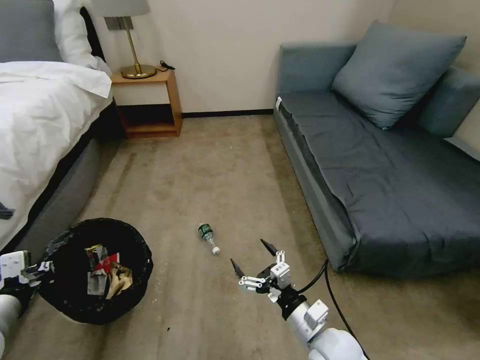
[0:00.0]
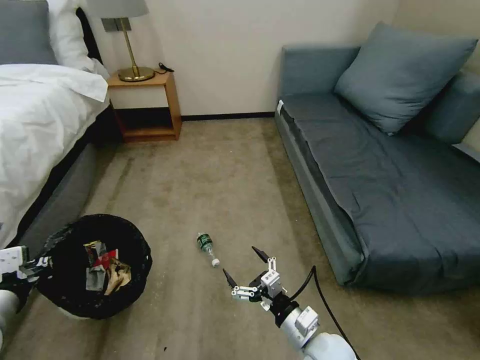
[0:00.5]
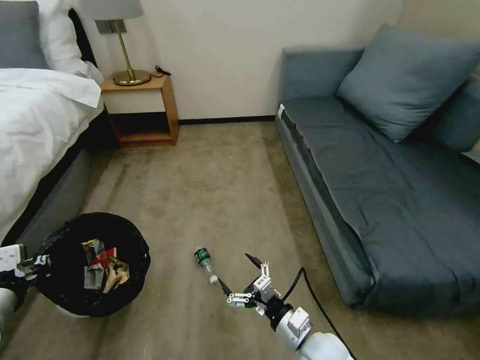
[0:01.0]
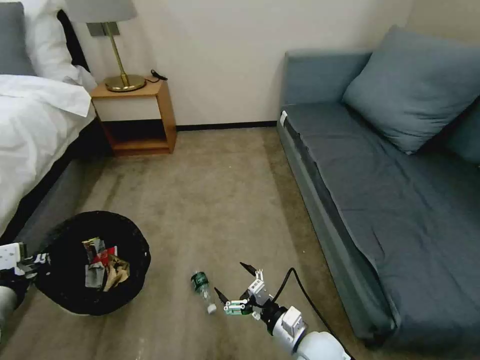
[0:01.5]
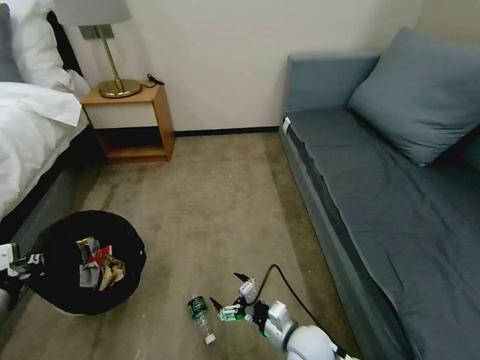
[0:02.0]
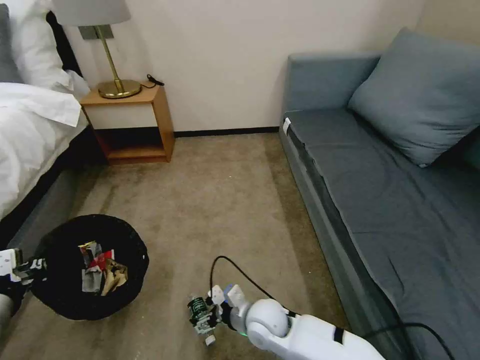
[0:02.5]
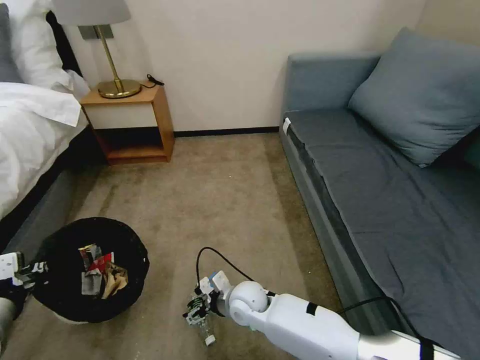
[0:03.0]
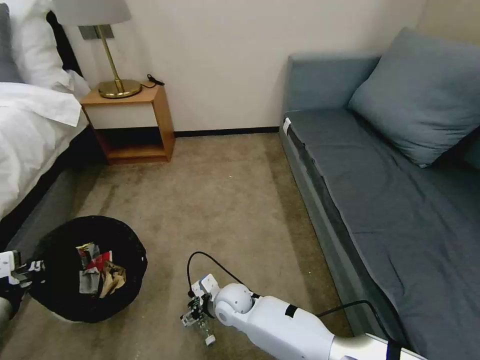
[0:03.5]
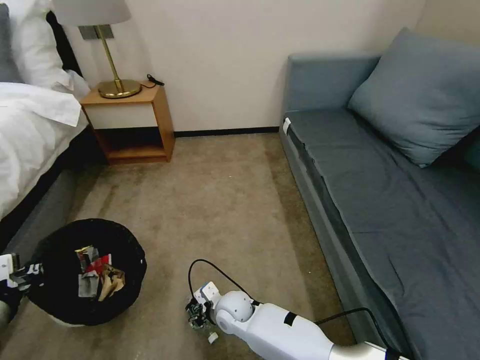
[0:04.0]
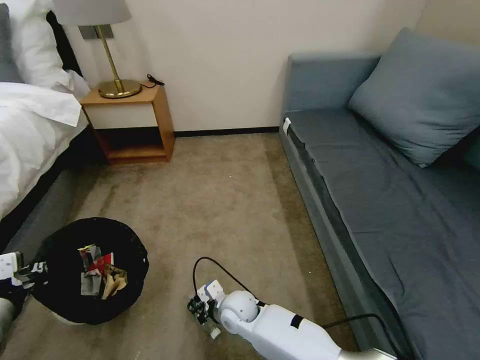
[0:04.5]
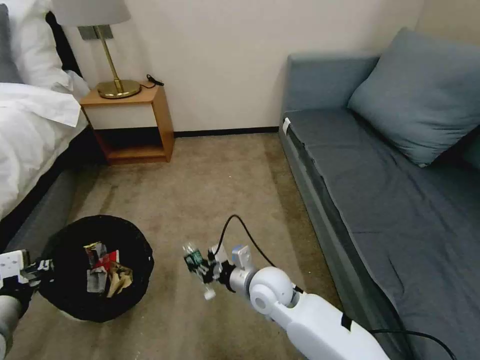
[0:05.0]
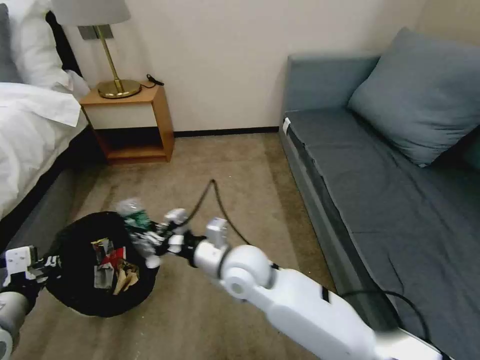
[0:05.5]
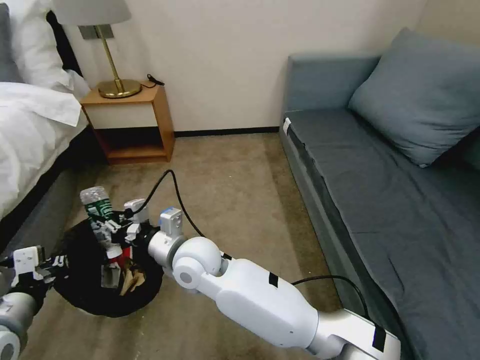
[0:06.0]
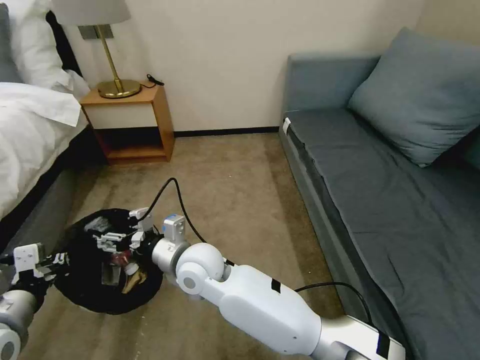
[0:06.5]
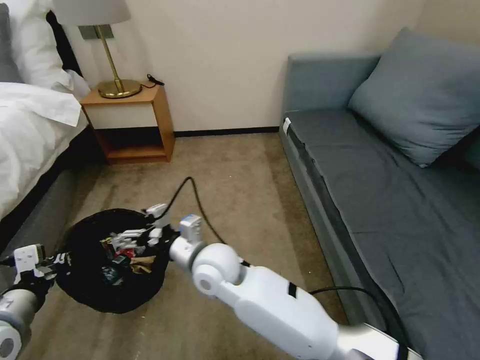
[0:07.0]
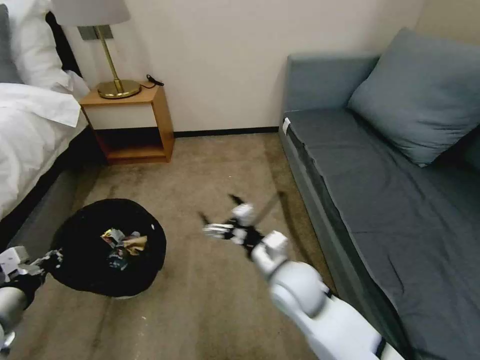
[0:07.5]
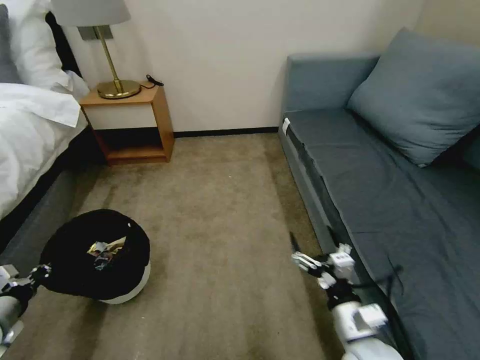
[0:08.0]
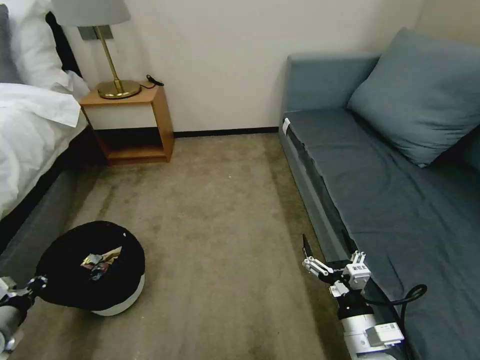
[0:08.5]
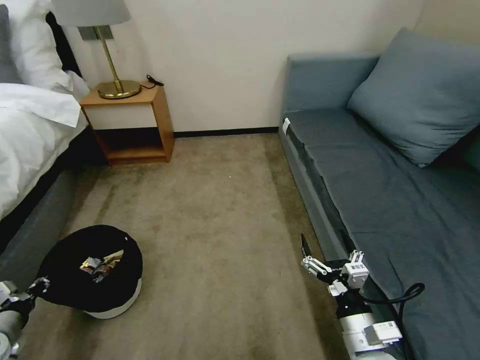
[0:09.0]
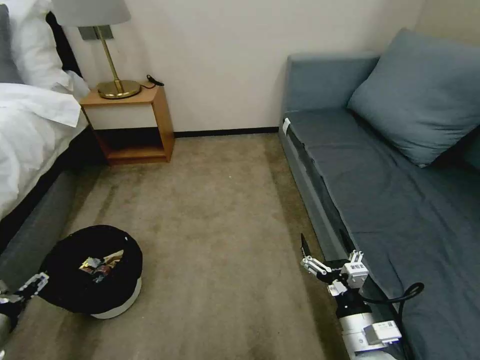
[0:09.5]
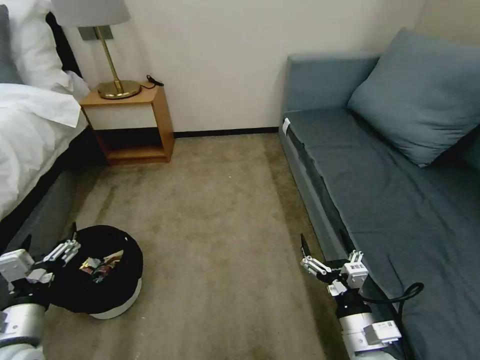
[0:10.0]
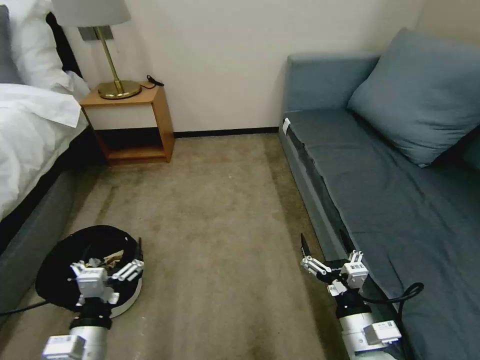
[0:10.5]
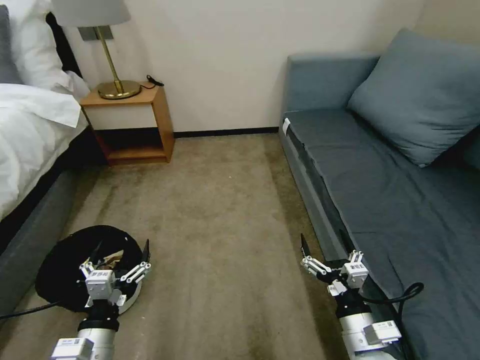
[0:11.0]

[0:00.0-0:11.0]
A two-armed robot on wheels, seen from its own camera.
Task of the whole recording: Pick up the trash bin, then pick up the garbage on the floor and place it into the trash bin.
0:00.0 to 0:02.0: The right gripper moves roughly 5 cm.
0:02.0 to 0:03.5: The right gripper moves to the left and forward, about 20 cm.
0:03.5 to 0:05.5: The right gripper shifts approximately 20 cm upward, and closes.
0:05.5 to 0:07.5: The right gripper moves to the right, some 10 cm, and opens up. Meanwhile the left gripper ends up approximately 5 cm from where it was.
0:07.5 to 0:09.0: The left gripper is displaced downward and to the left by approximately 15 cm; the right gripper heads backward, to the right and downward, covering roughly 20 cm.
0:09.0 to 0:11.0: The left gripper goes approximately 25 cm to the right, and opens its fingers.
